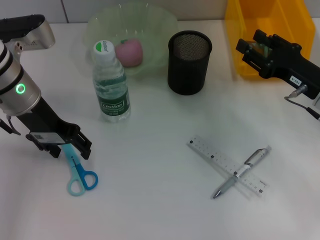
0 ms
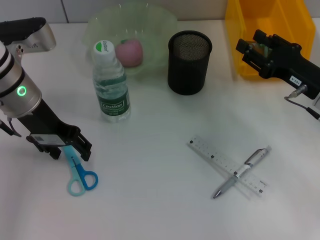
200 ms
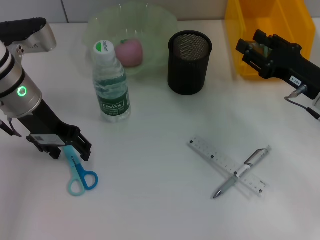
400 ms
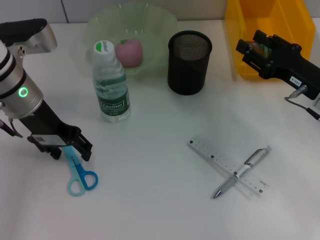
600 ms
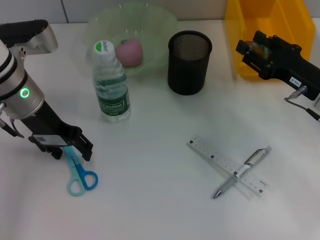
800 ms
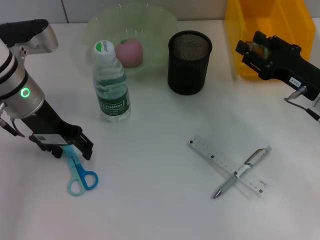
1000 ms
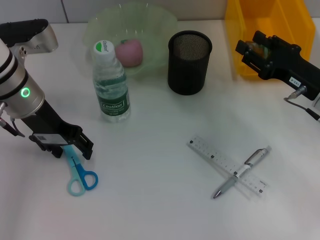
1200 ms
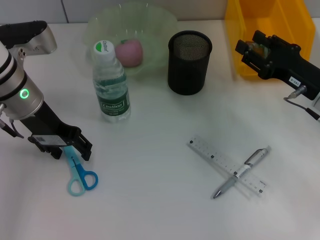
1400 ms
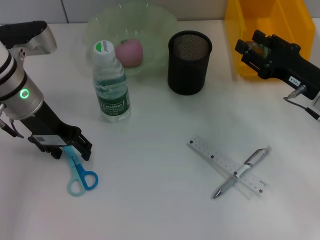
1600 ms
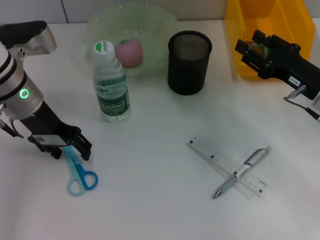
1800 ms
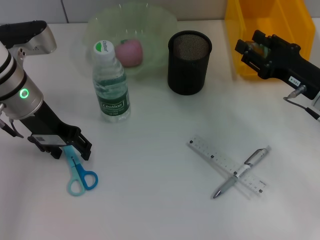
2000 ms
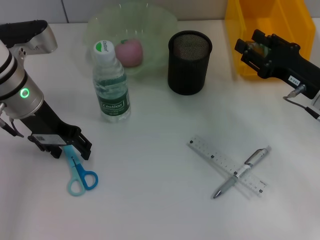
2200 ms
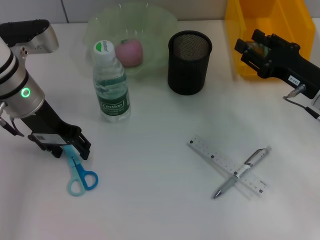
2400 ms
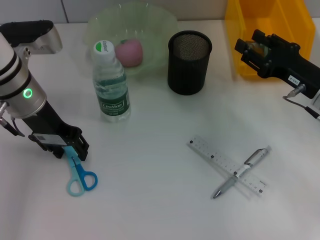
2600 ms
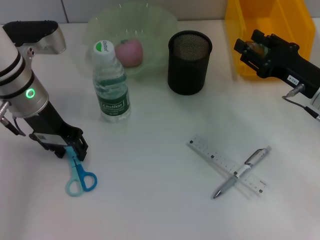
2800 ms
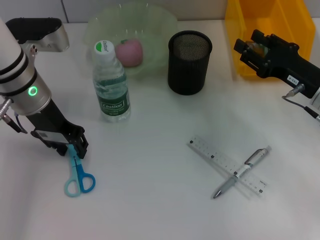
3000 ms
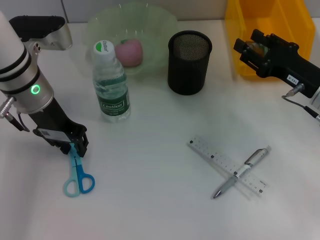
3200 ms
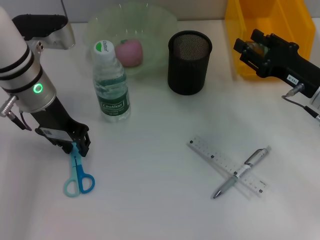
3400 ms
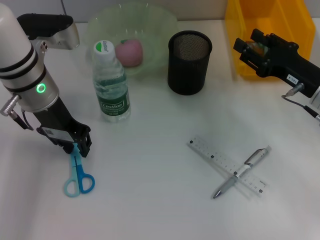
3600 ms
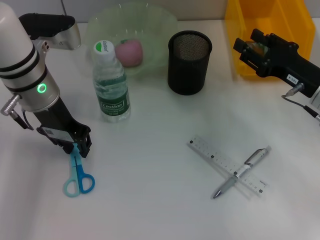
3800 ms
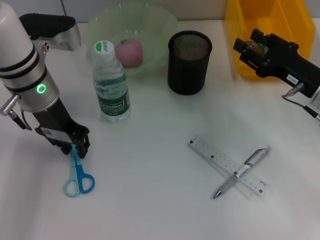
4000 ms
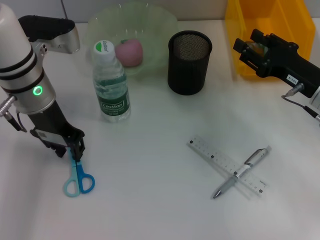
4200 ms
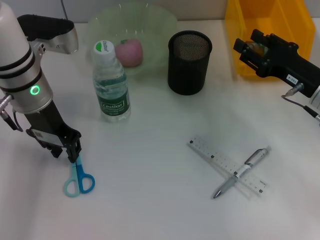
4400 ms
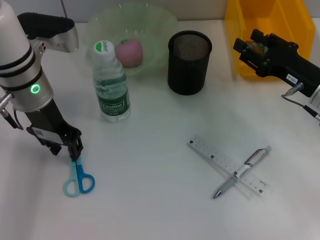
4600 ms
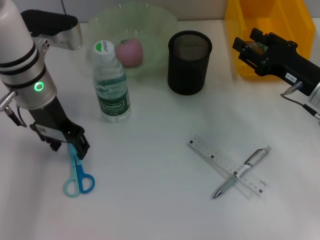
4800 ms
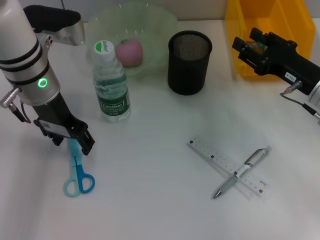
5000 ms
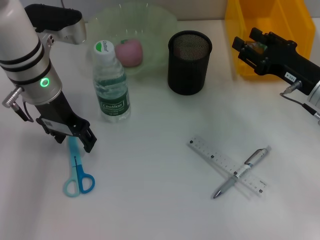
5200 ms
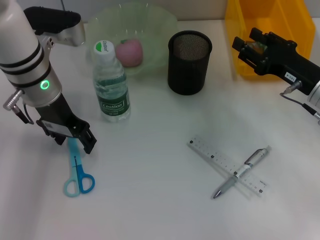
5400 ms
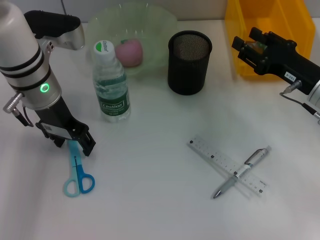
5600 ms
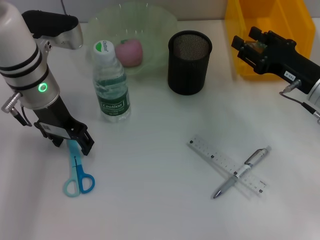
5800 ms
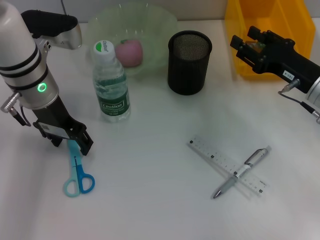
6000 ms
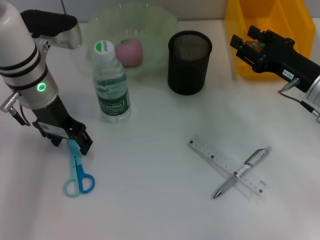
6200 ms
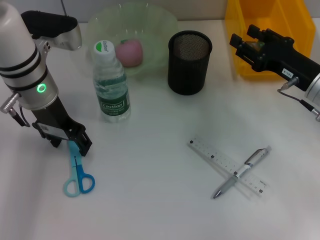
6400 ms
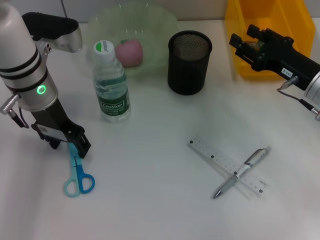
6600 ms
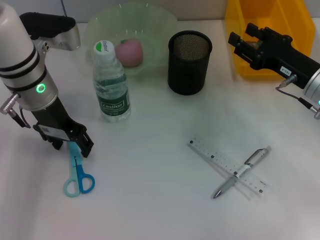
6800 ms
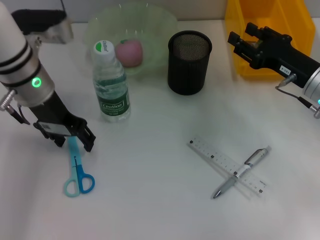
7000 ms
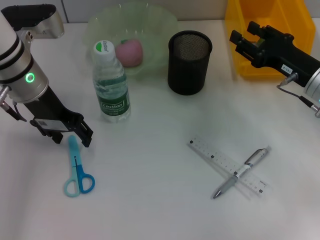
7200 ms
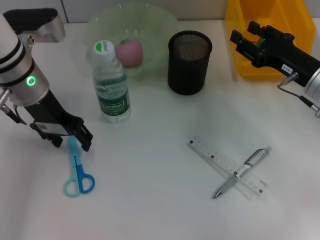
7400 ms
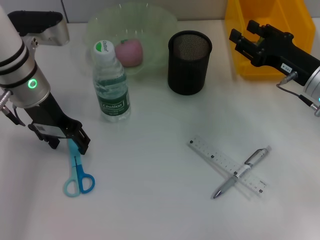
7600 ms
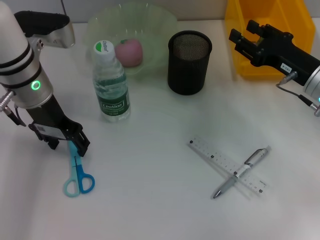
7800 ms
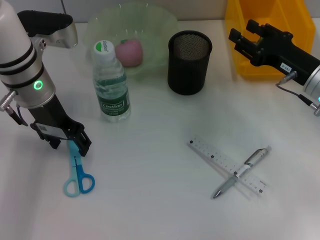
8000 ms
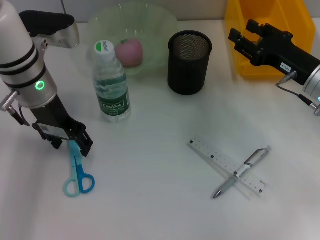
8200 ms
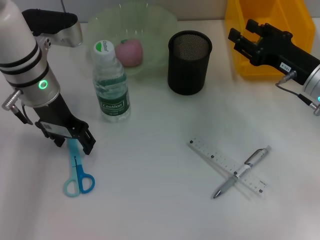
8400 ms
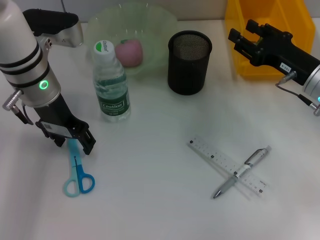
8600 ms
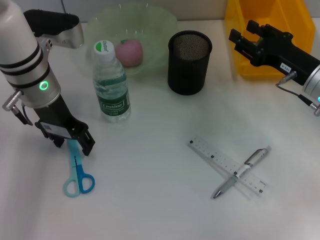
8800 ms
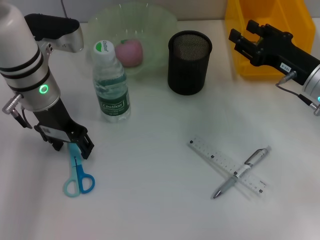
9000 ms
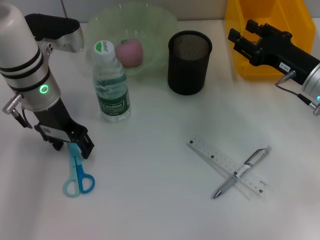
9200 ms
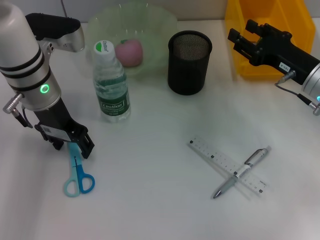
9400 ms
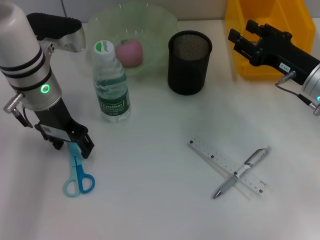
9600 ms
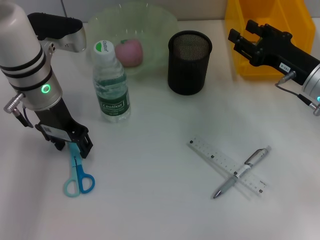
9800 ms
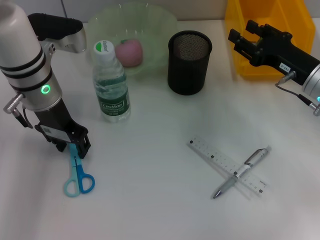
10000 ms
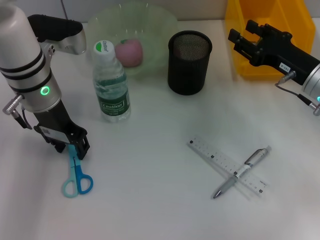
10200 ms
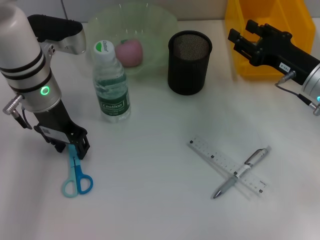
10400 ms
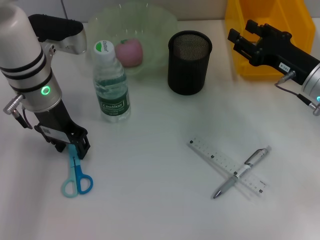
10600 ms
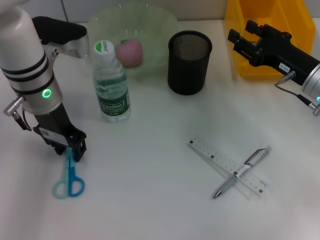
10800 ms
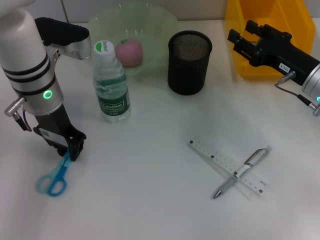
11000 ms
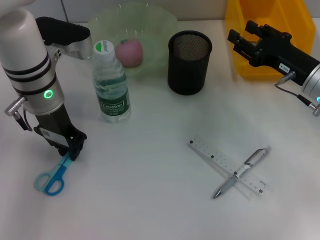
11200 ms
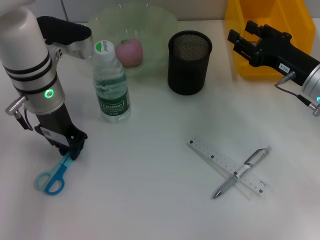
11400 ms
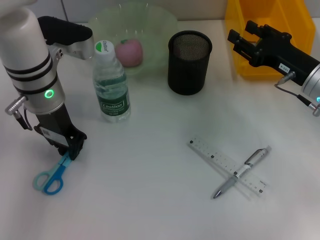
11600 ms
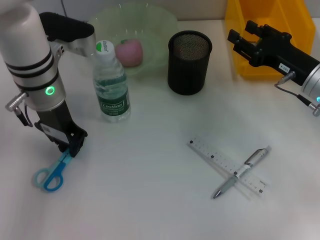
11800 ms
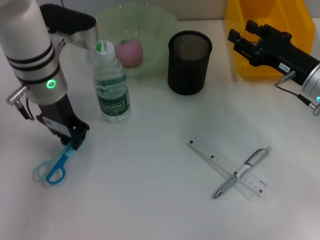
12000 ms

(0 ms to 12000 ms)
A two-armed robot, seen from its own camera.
Step, 0 ms - 11600 ms: Grab the blue scissors with the left hand.
0 ms - 1600 ms: Both grippers stay put.
1600 ms - 3000 ms: The left gripper closes.
3000 ms - 4400 ms: The grippers make only small movements.
4400 ms - 6000 ms: The left gripper opens up.
6000 ms - 9000 ms: The grippers move only a little.
9000 ms - 10400 ms: Both grippers stay put.
10400 ms - 12000 ms: The left gripper closes.

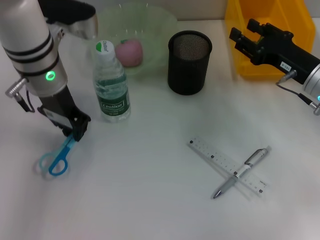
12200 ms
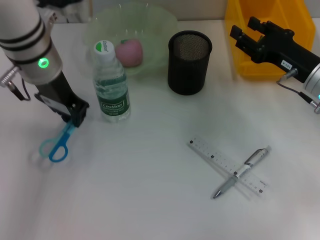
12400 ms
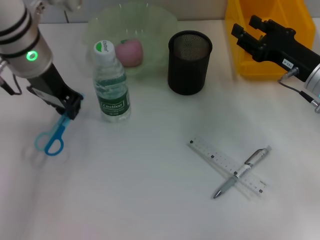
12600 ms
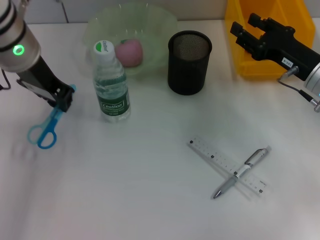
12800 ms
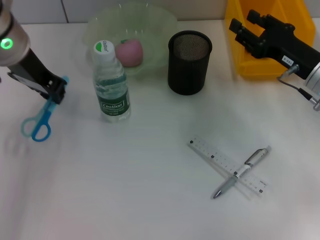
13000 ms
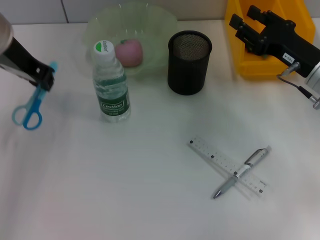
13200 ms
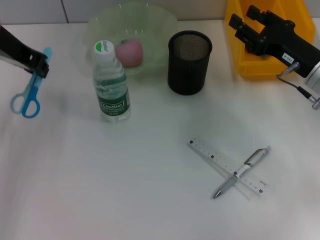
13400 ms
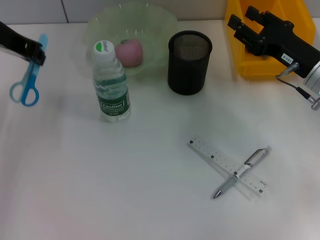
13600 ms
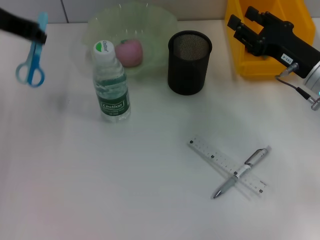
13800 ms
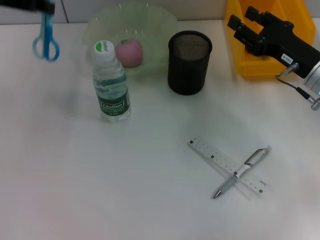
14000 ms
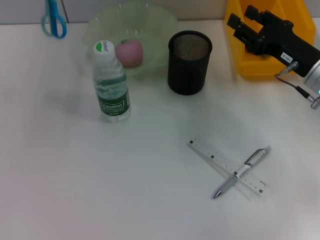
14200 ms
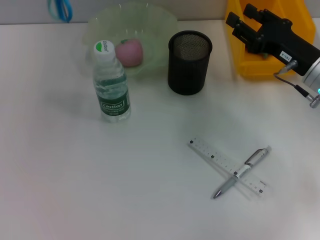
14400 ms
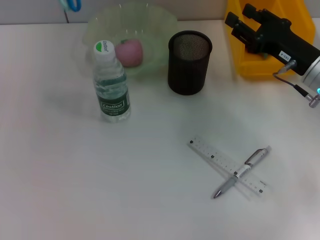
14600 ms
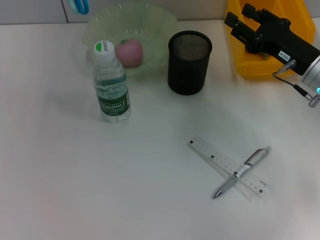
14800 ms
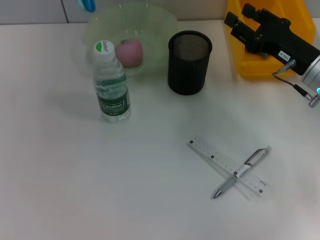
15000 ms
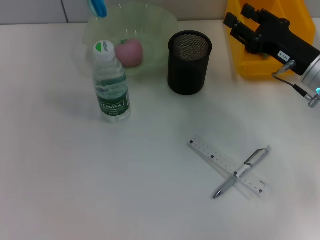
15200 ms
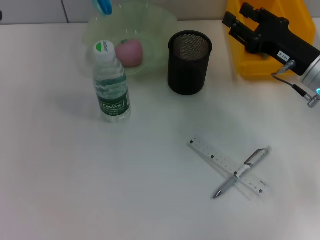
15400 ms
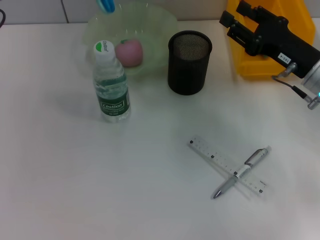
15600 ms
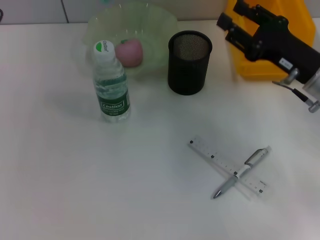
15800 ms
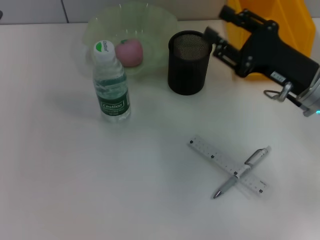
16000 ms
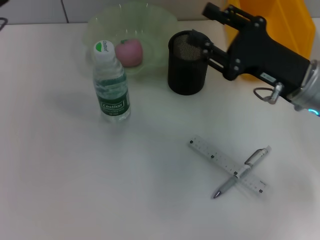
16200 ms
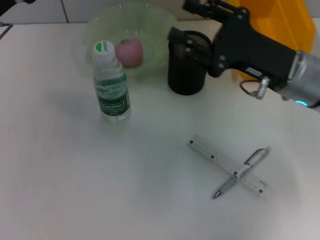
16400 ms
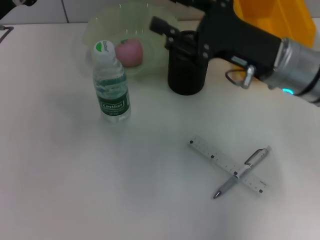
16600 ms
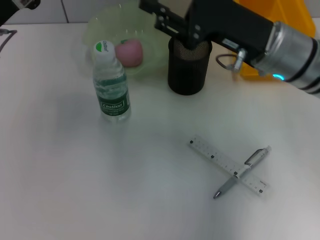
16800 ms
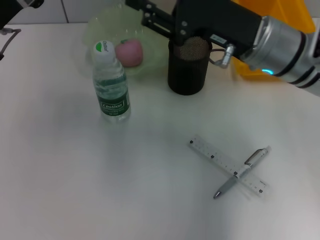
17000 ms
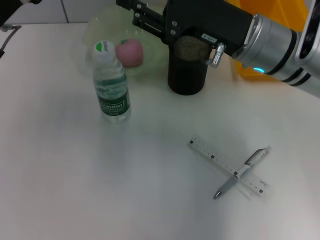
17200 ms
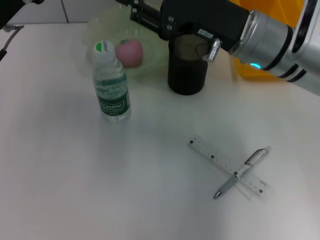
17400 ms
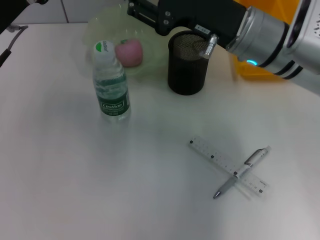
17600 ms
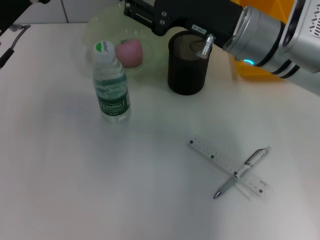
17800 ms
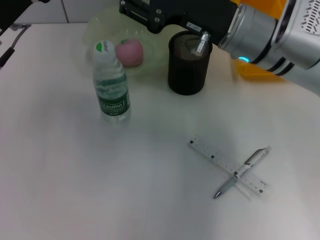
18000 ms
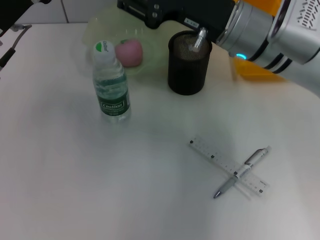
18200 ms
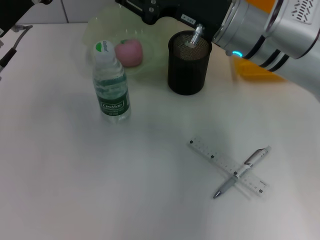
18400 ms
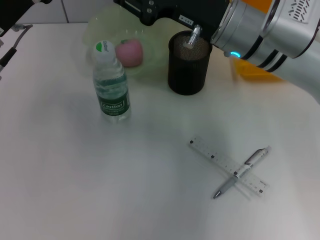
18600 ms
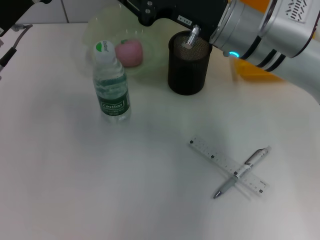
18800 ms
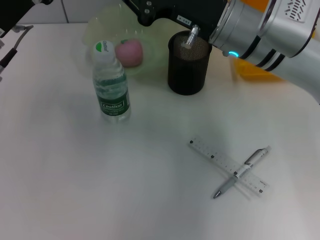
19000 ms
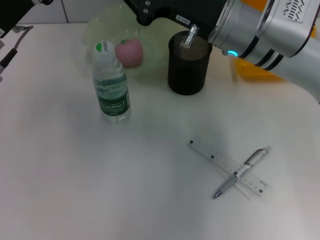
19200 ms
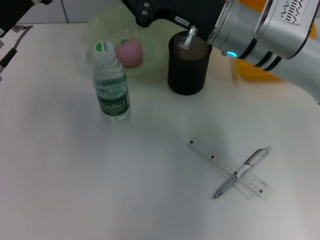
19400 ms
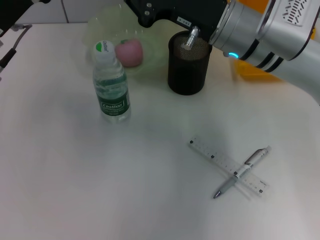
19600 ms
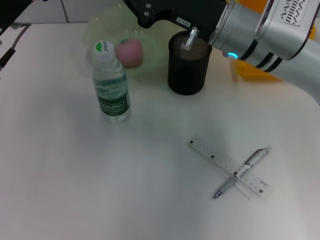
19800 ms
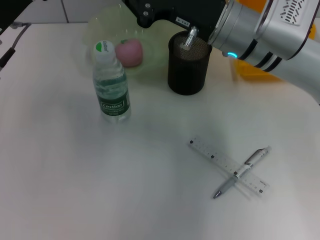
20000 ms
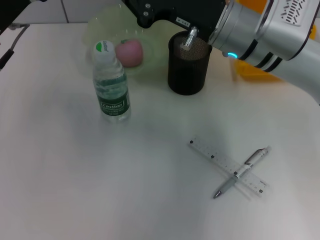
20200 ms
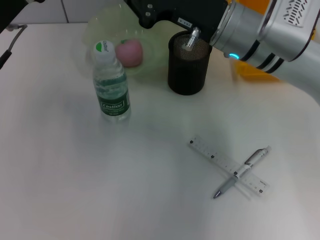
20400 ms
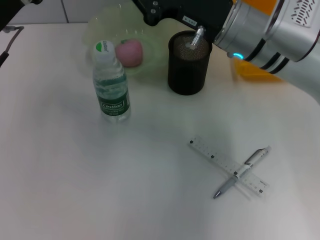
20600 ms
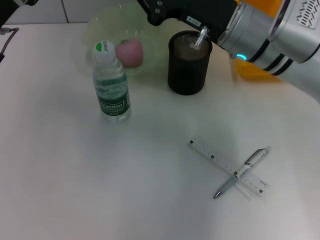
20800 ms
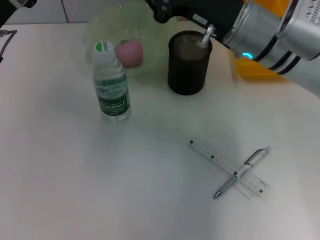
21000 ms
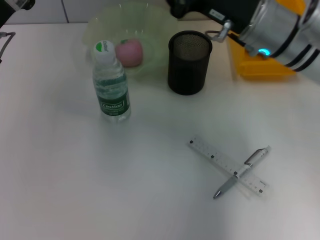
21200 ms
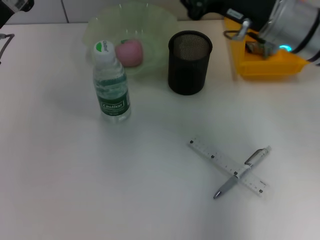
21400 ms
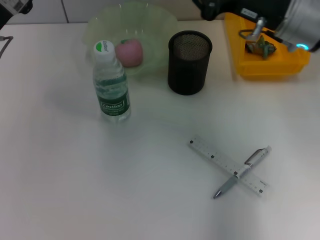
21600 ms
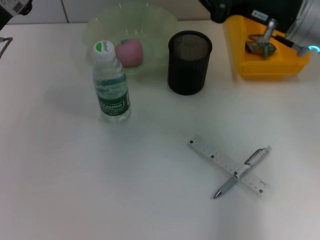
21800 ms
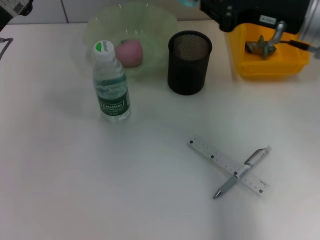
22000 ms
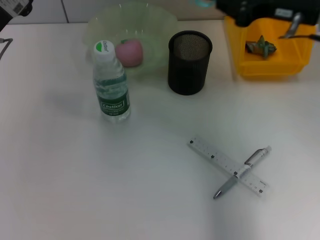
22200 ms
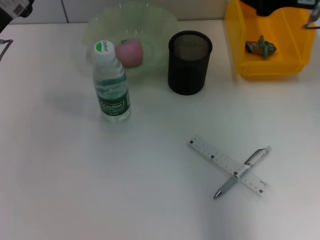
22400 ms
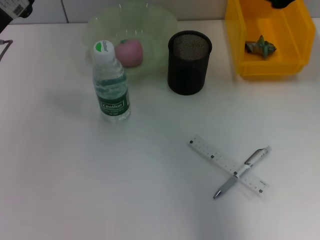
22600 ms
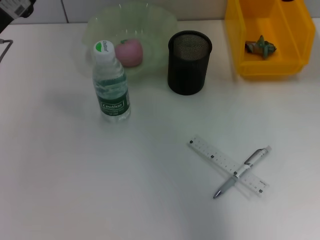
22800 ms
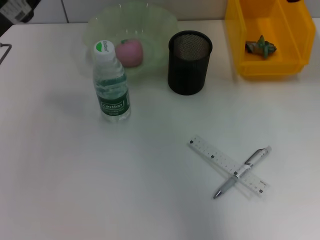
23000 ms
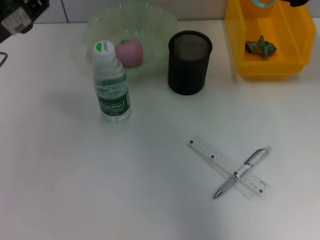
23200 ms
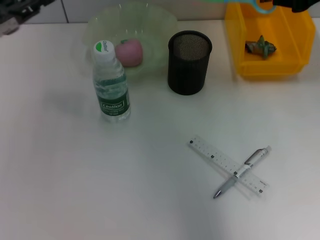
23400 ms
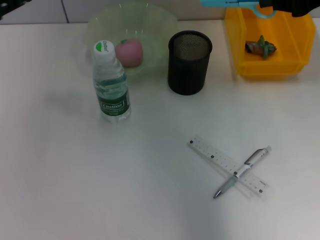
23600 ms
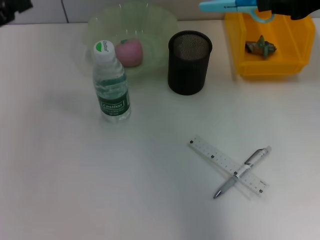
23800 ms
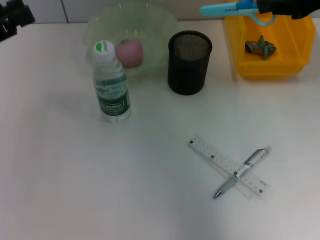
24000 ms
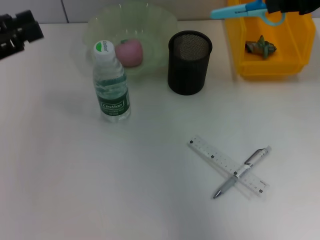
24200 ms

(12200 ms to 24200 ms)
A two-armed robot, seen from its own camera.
Step, 12200 ms - 21000 ms: Pass the blue scissors from the left hand to the right hand.
12200 ms - 13800 ms: The left gripper shifts roughly 15 cm upward and to the left.
13800 ms - 15200 ms: The left gripper moves about 5 cm.
15200 ms - 16600 ms: The left gripper travels downward by about 5 cm; the right gripper goes approximately 10 cm to the left and upward.
16600 ms - 18200 ms: The right gripper shifts roughly 5 cm to the left.
18200 ms - 19800 ms: The right gripper closes.
19800 ms - 21200 ms: The grippers move only a little.
21200 ms - 22600 ms: The right gripper goes about 15 cm upward and to the right.
22600 ms - 24200 ms: The left gripper shifts roughly 5 cm to the left.
